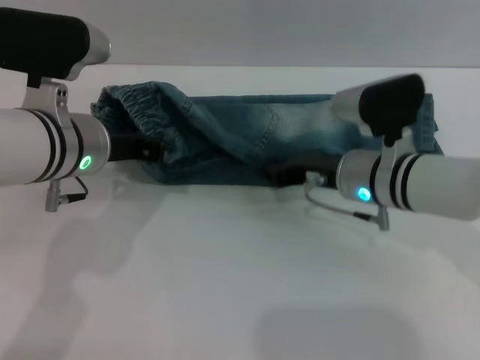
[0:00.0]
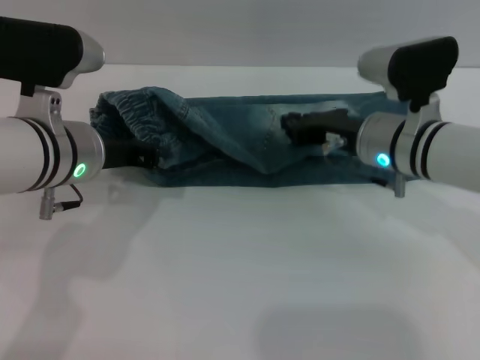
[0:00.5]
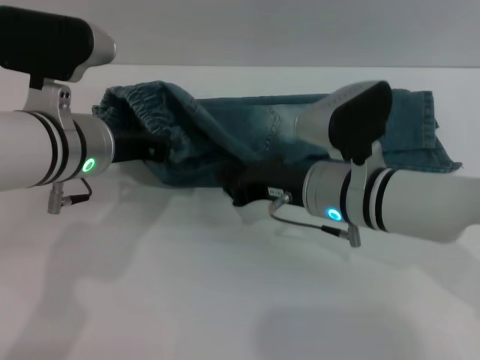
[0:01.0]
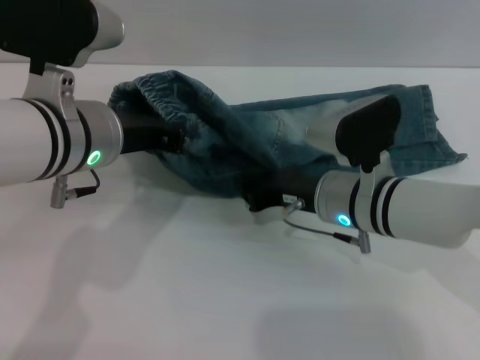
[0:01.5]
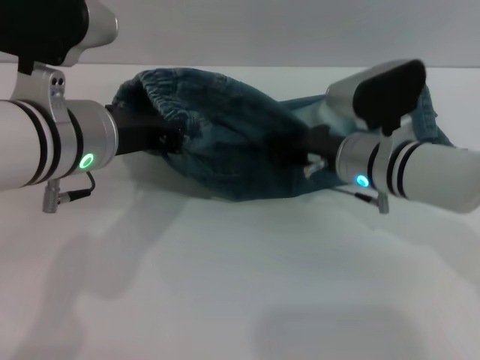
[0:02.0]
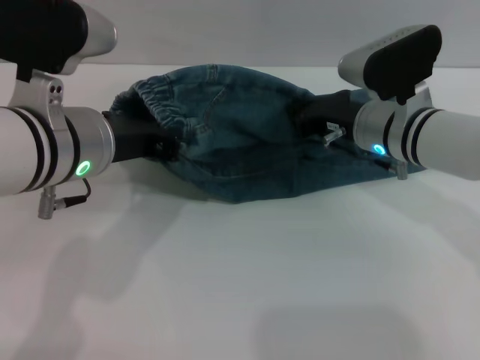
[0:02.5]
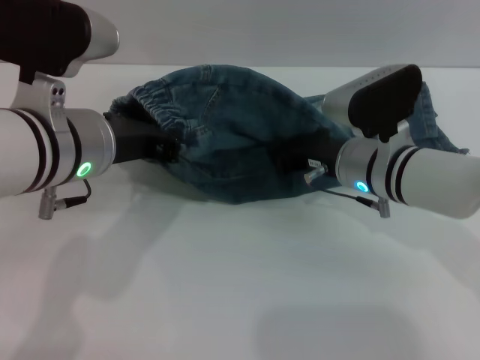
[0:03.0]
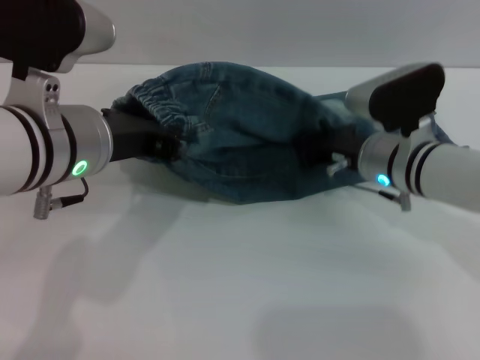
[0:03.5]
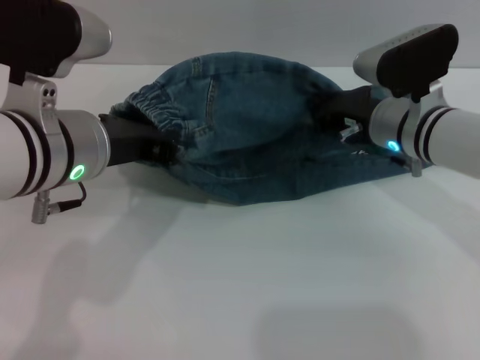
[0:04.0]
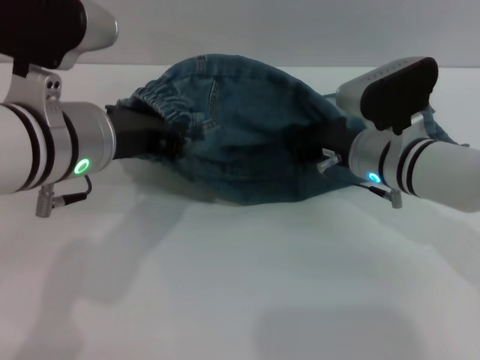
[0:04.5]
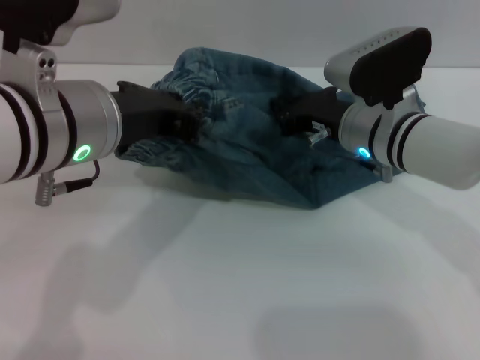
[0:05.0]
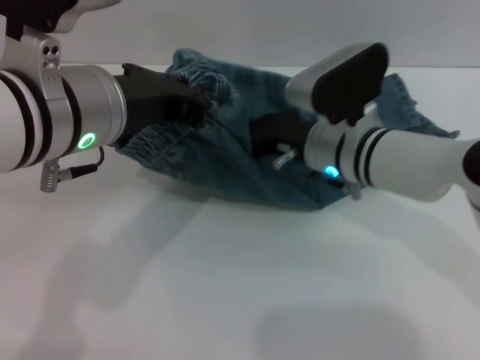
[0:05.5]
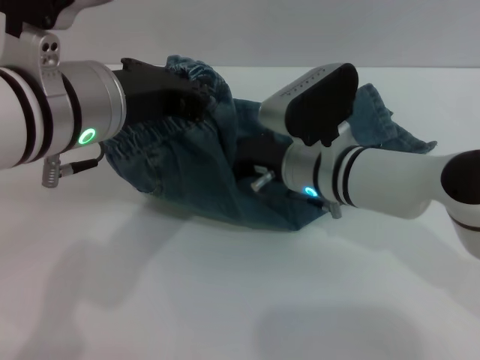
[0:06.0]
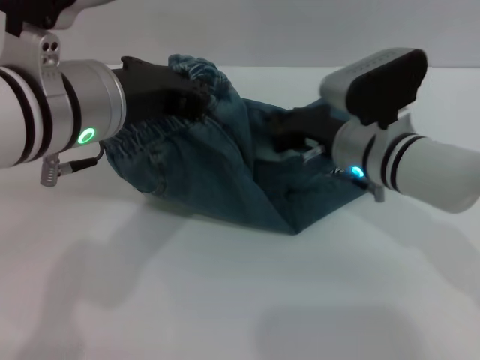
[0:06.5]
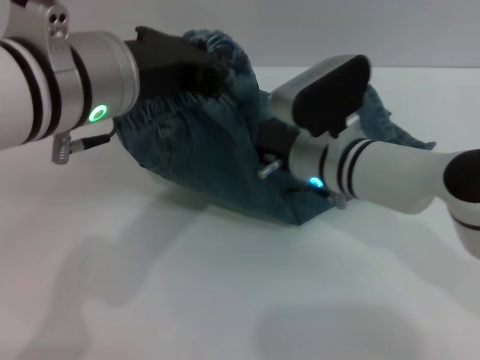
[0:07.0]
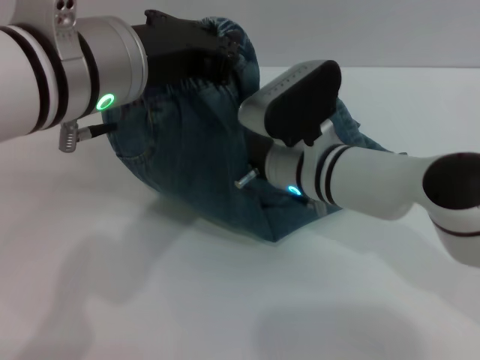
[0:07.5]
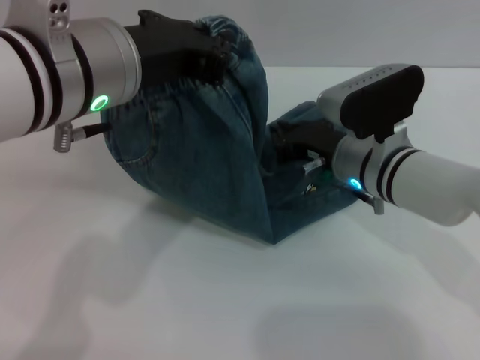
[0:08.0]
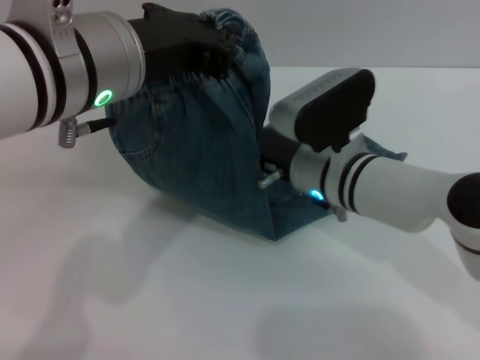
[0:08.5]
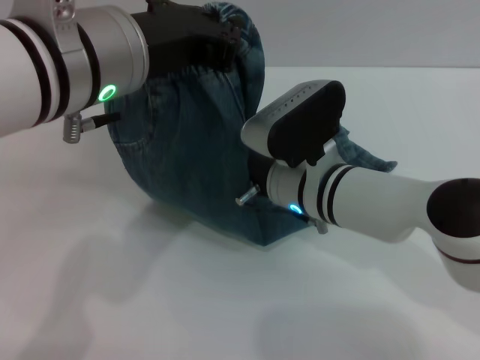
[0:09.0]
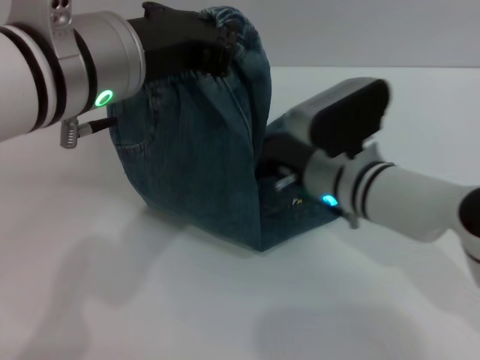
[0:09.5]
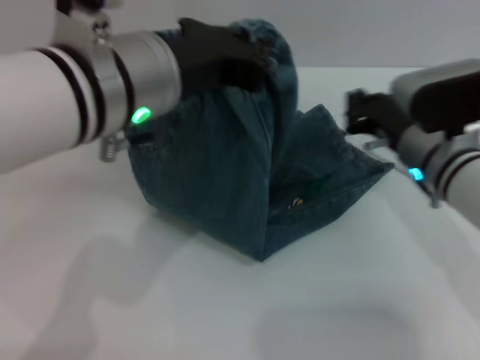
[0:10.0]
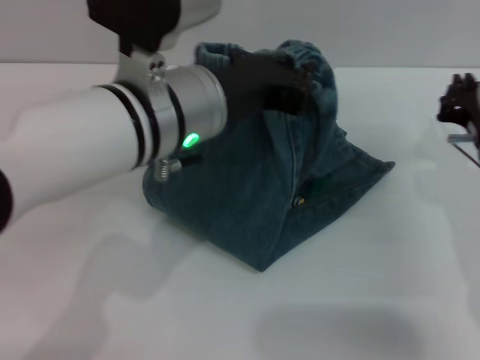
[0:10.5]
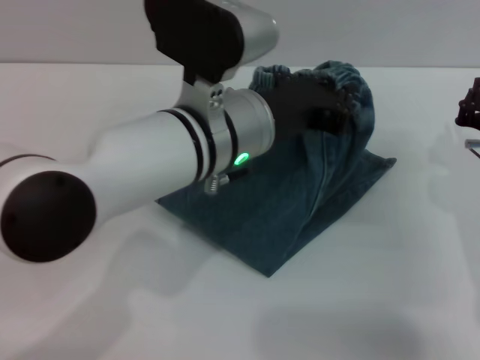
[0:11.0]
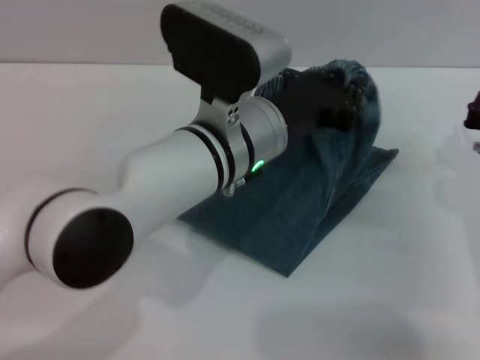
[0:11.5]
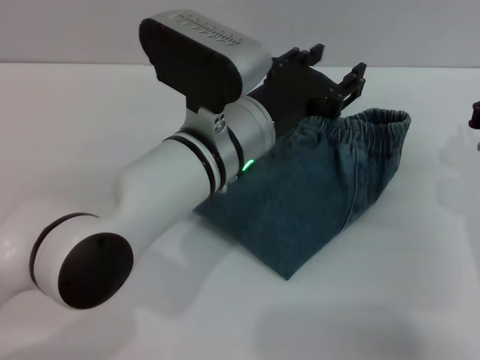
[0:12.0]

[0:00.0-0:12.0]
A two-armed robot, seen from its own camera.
0:00.0 to 0:02.0: The left gripper changes place by some 5 cm.
0:04.0 to 0:06.0: The right gripper heads to the left, covering about 10 cm.
0:06.0 to 0:08.0: The right gripper goes left and right, about 5 cm each way, reversing 2 times.
0:08.0 to 0:10.0: The right gripper moves about 5 cm.
0:10.0 to 0:12.0: The right gripper goes approximately 10 cm to the right. Meanwhile the left gripper shifts roughly 10 cm downward and to the right, and opens.

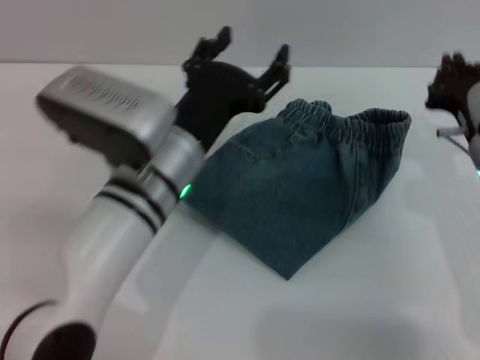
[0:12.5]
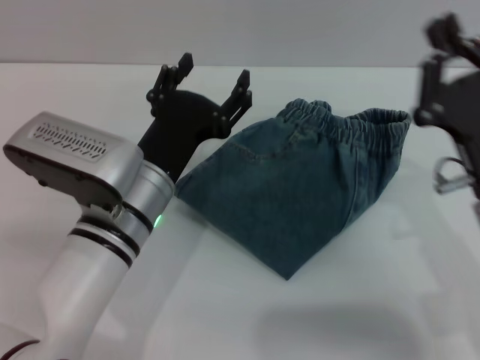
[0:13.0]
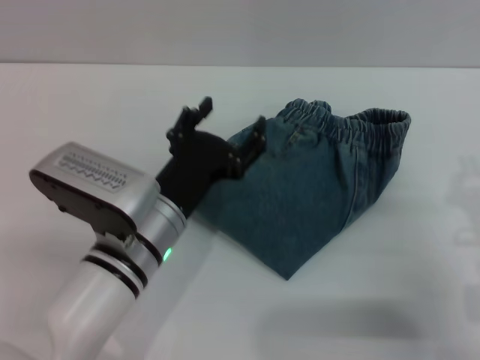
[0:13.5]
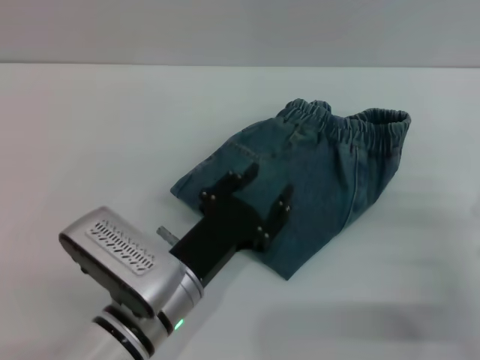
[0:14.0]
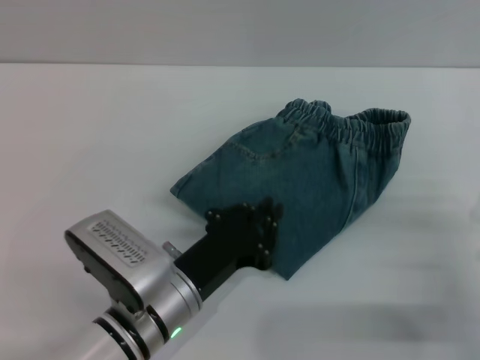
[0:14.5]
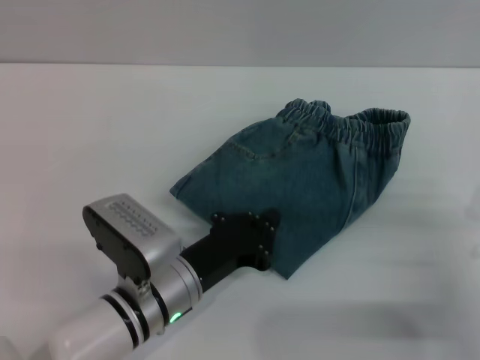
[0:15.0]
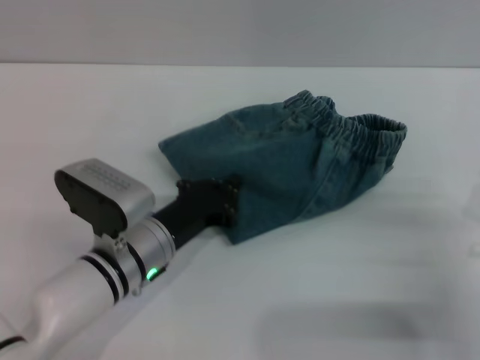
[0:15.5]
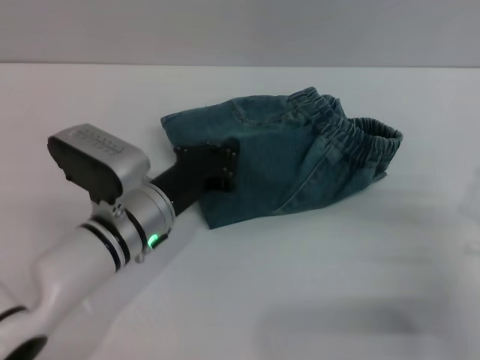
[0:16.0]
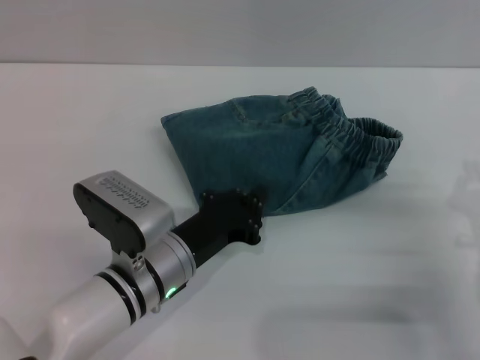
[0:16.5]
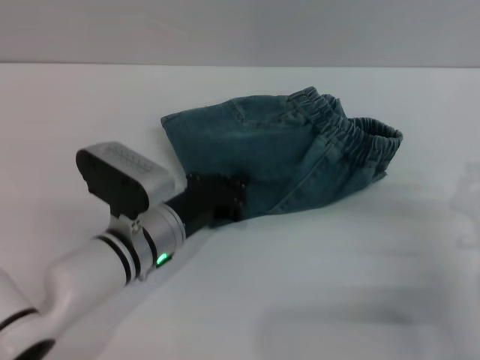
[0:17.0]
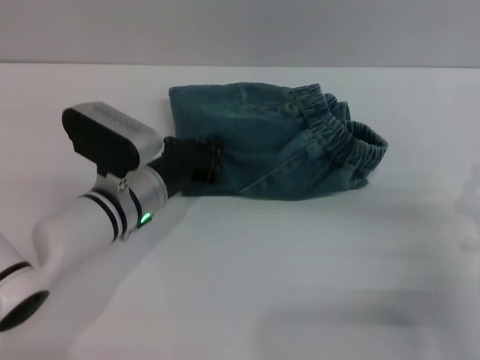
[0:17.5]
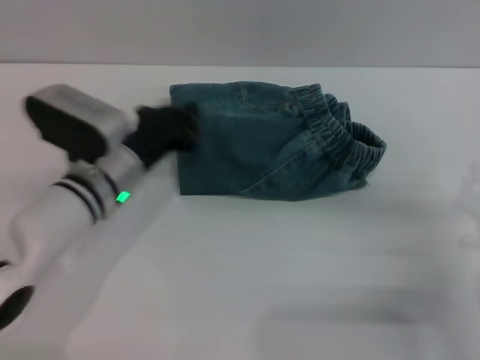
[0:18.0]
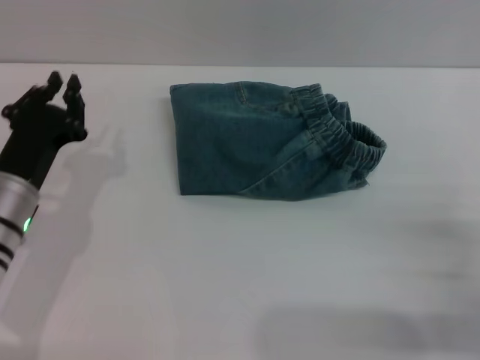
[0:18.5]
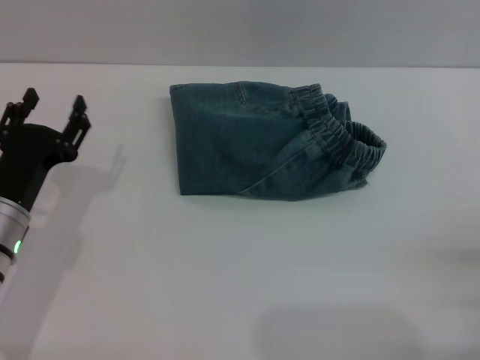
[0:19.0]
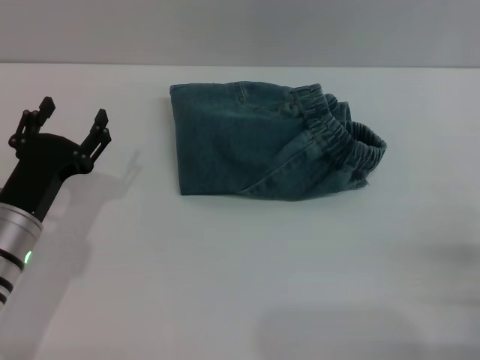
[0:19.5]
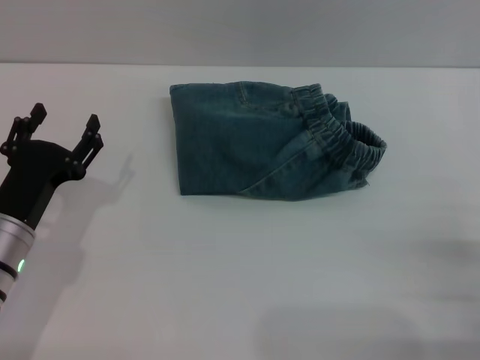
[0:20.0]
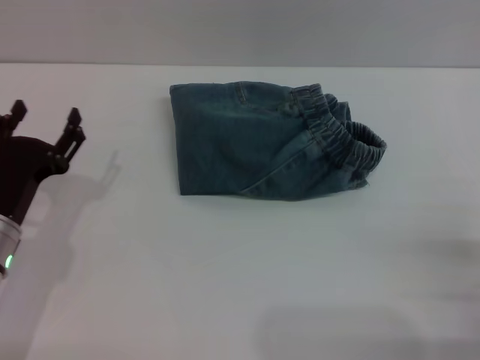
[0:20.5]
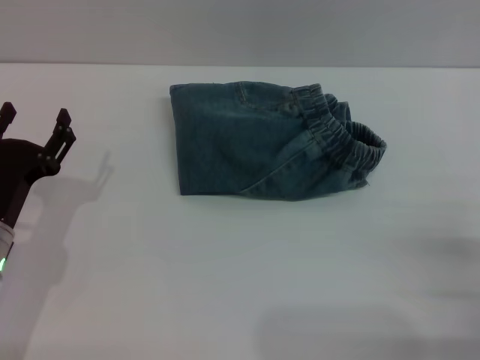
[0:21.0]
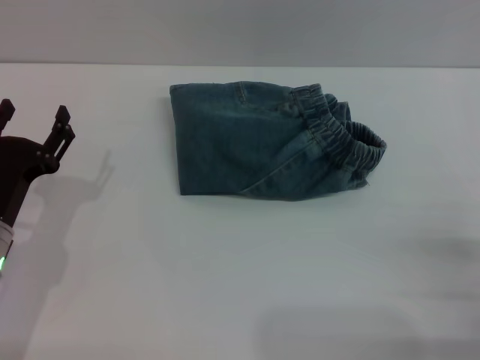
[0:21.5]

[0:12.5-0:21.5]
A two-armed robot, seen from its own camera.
Step, 0:12.5 to 0:18.0: Place the folded trousers onto the center area with the left grippers.
0:12.5 to 0:14.5: The right gripper is displaced backward, downward and to the right by about 15 cm, while the left gripper heads downward and backward, covering some 10 cm, and closes.
0:14.5 to 0:17.0: The left gripper travels forward by some 10 cm.
0:17.0 to 0:19.5: The left gripper goes about 10 cm to the left, and opens its fingers. The right gripper goes roughly 5 cm backward, and opens its fingers.
0:19.5 to 0:21.5: The grippers move only a little.

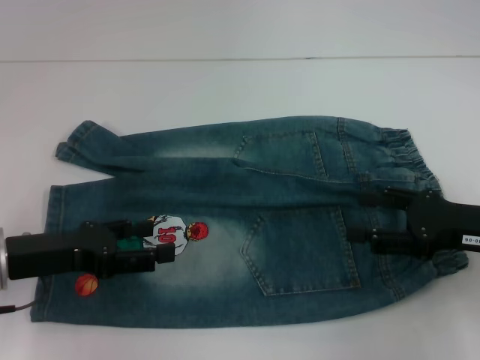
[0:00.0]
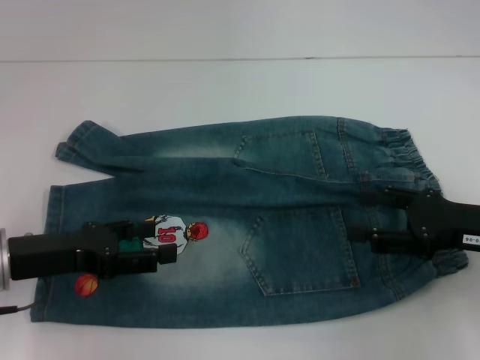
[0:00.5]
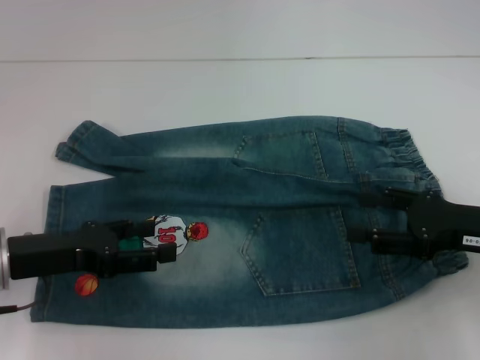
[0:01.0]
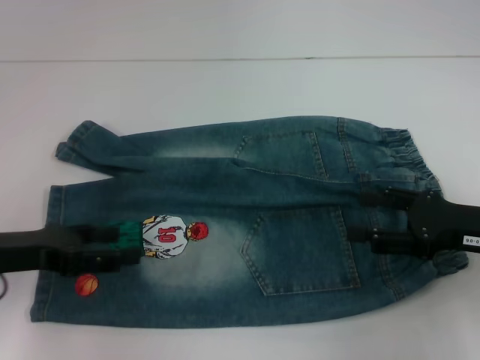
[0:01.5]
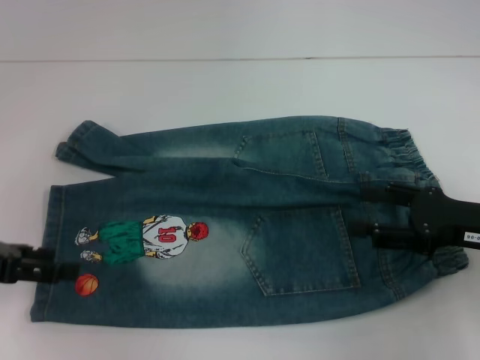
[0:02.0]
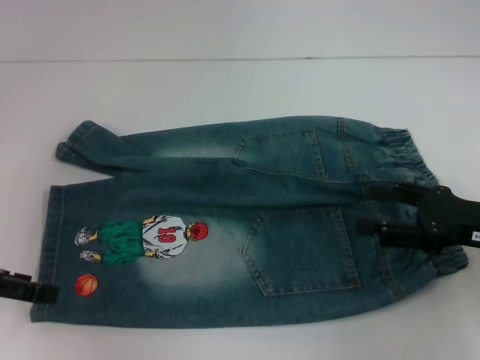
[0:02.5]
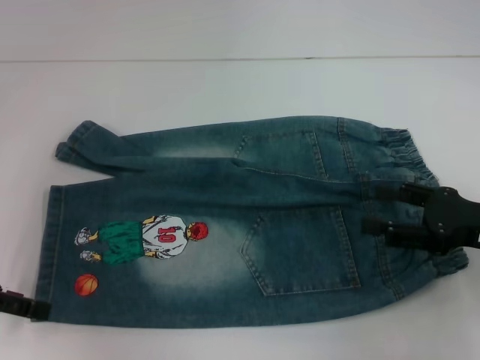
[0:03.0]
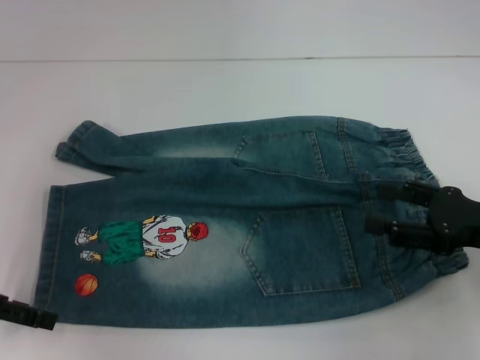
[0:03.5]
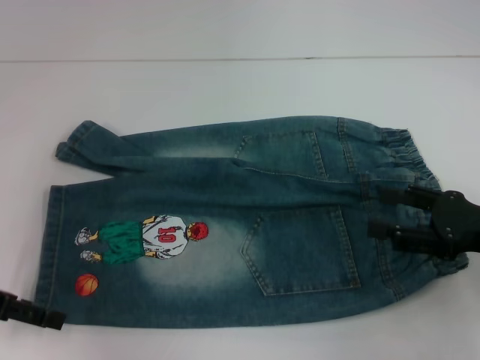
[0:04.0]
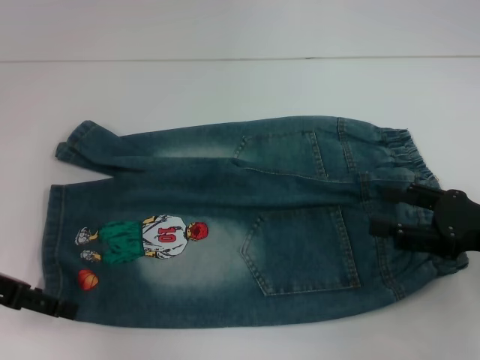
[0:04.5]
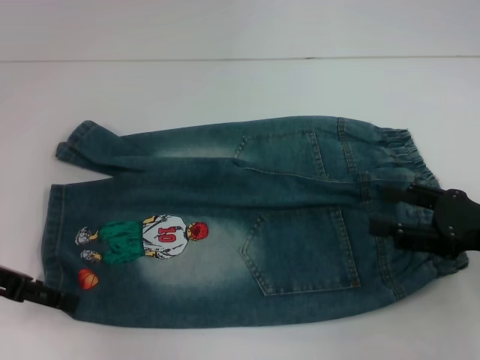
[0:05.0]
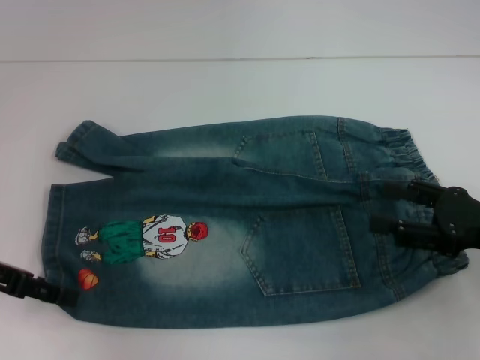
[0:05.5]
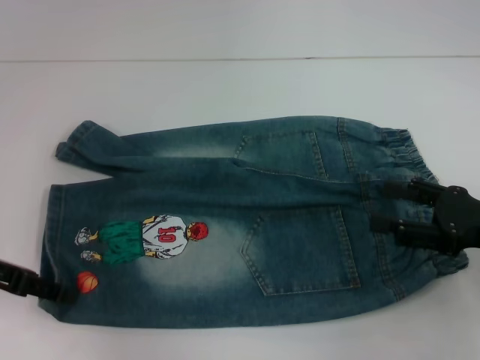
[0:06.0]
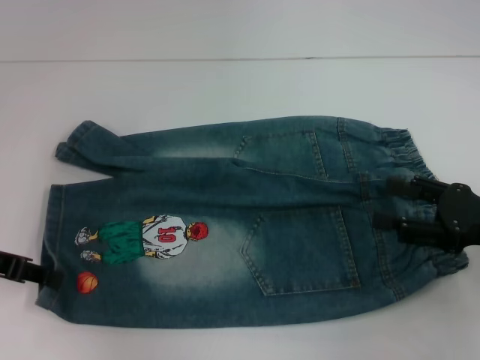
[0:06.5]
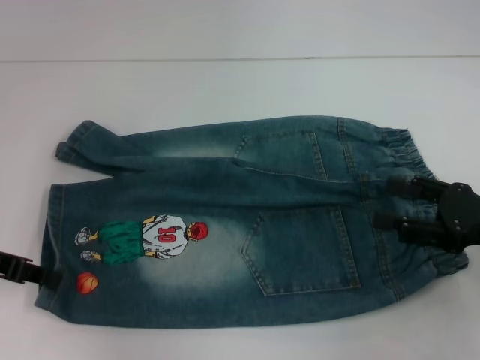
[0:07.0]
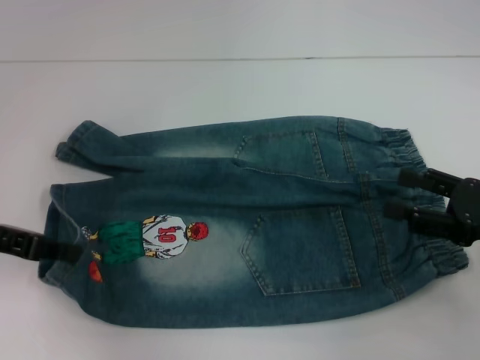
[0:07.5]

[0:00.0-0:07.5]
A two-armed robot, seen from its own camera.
Step, 0:00.0 to 0:05.5: Grab the lower left pant leg with your left hand.
0:00.0 to 0:02.0: The left gripper moves to the left, about 5 cm.
0:02.0 to 0:05.5: There are only small adjustments of the grippers.
0:05.5 to 0:07.5: The left gripper closes its fingers.
